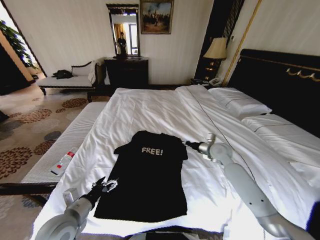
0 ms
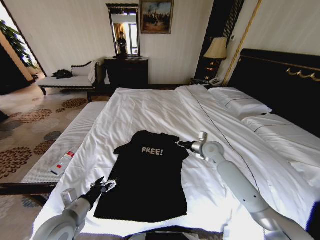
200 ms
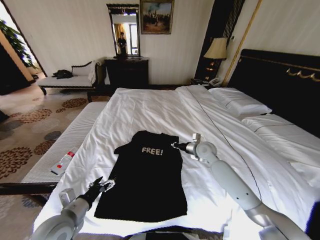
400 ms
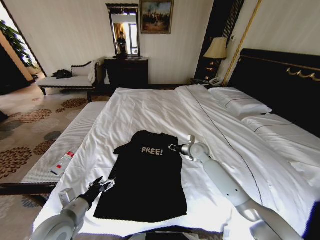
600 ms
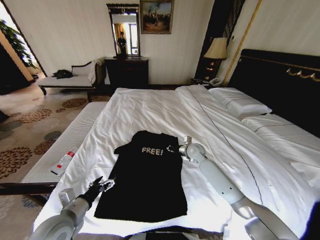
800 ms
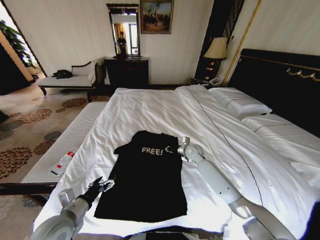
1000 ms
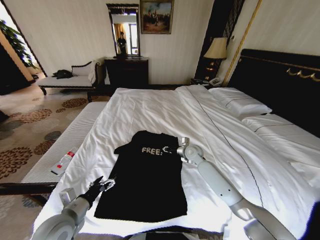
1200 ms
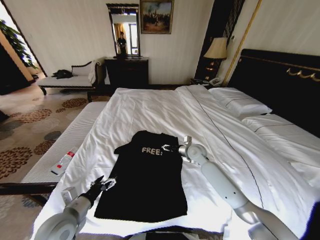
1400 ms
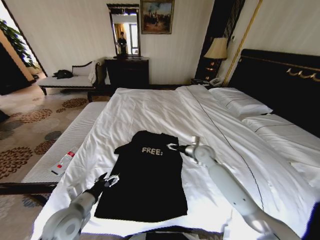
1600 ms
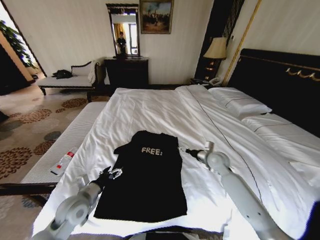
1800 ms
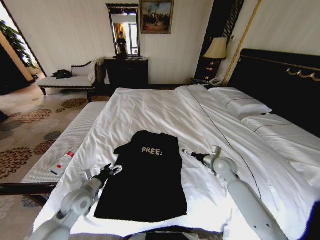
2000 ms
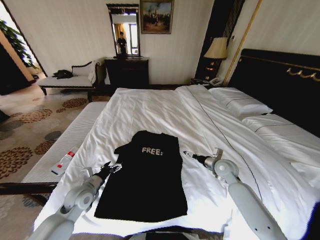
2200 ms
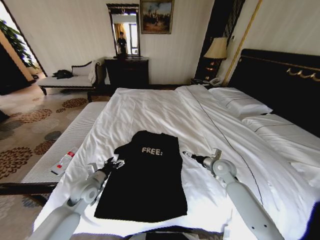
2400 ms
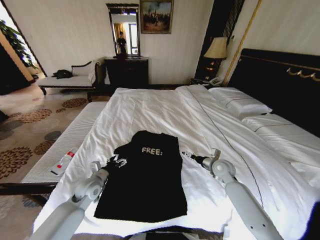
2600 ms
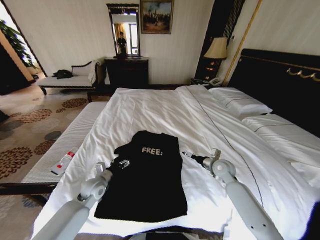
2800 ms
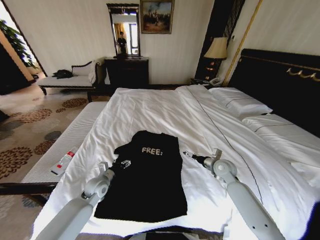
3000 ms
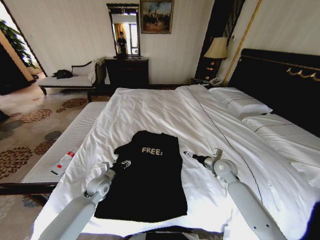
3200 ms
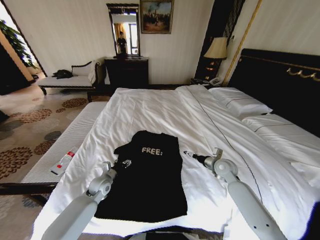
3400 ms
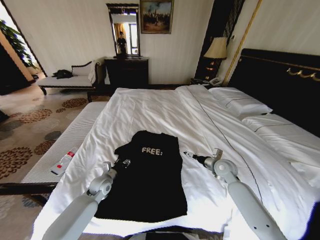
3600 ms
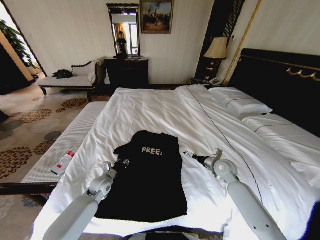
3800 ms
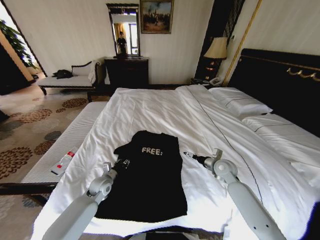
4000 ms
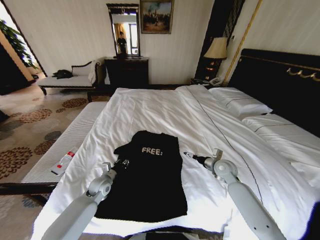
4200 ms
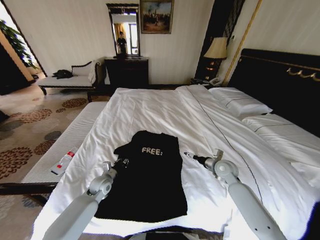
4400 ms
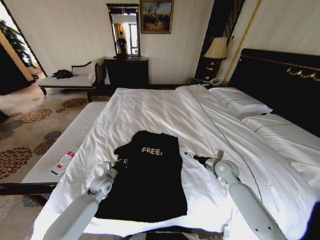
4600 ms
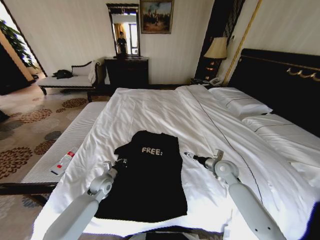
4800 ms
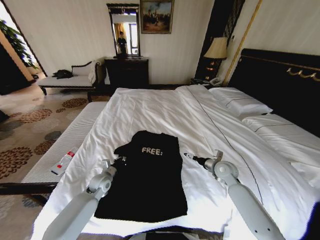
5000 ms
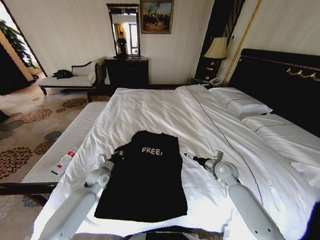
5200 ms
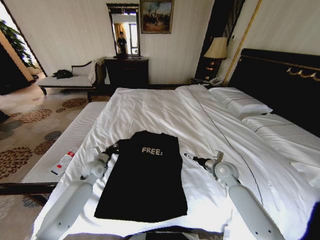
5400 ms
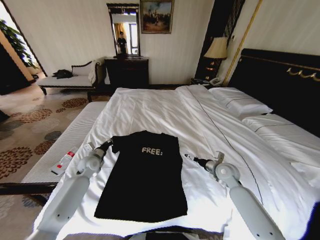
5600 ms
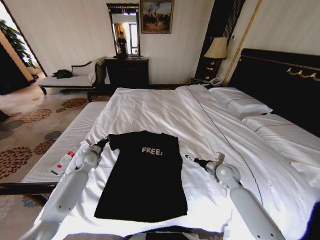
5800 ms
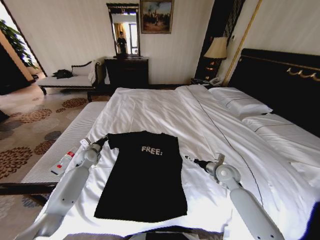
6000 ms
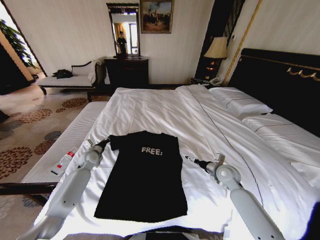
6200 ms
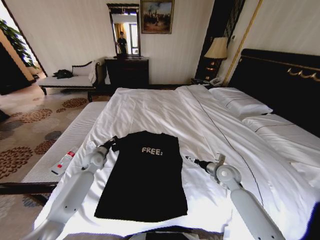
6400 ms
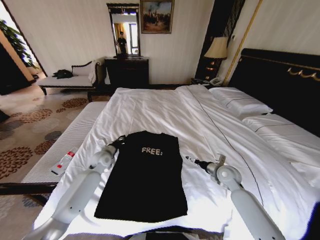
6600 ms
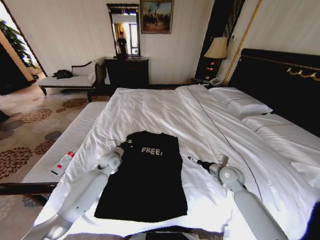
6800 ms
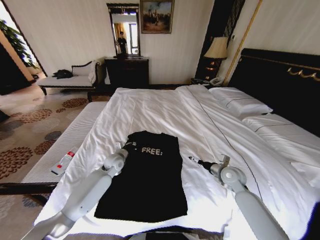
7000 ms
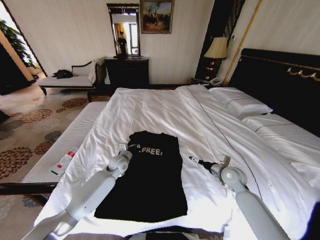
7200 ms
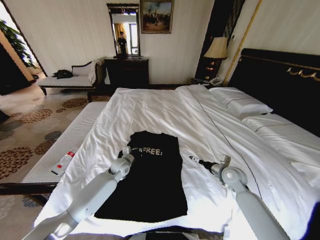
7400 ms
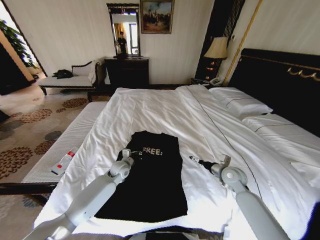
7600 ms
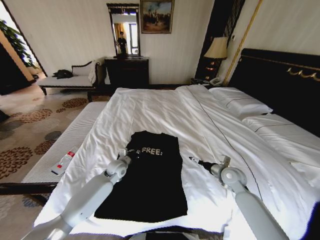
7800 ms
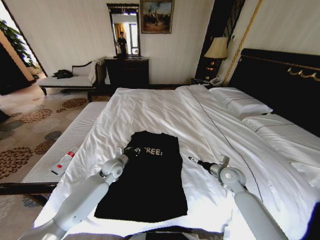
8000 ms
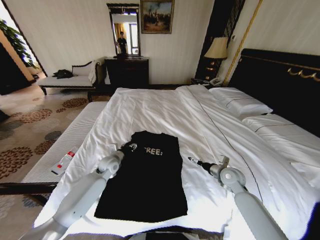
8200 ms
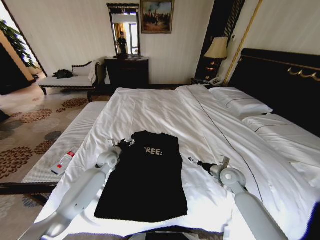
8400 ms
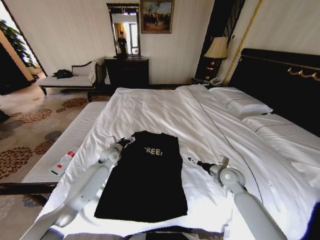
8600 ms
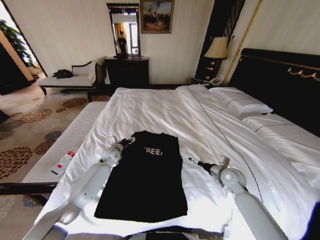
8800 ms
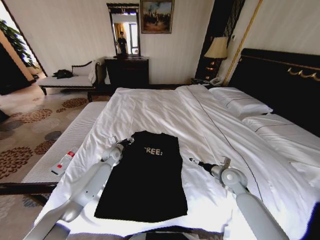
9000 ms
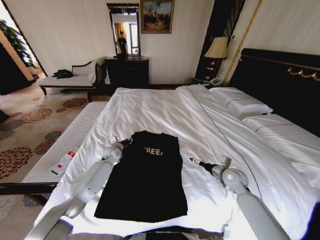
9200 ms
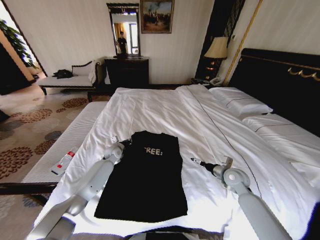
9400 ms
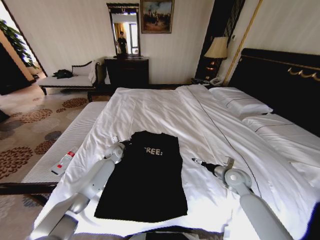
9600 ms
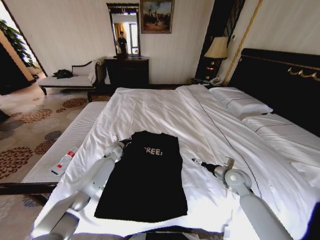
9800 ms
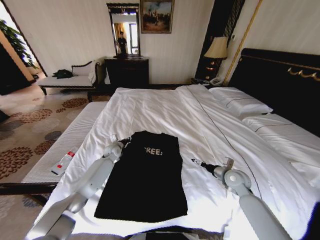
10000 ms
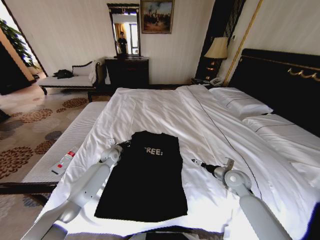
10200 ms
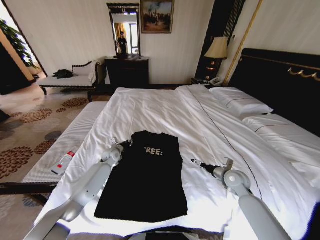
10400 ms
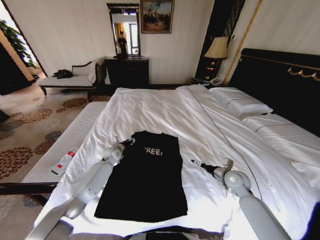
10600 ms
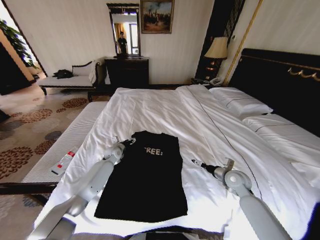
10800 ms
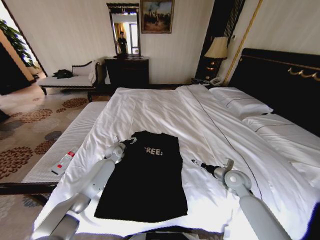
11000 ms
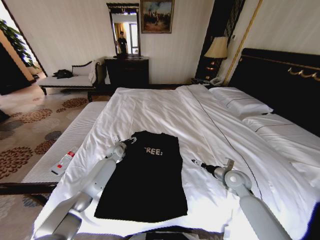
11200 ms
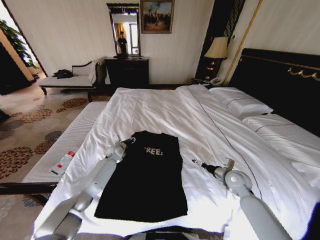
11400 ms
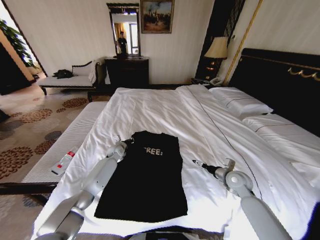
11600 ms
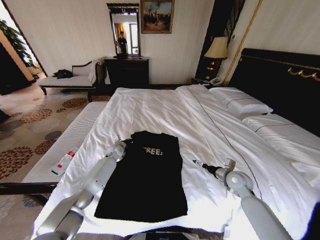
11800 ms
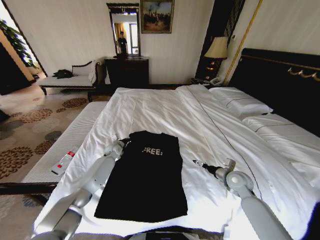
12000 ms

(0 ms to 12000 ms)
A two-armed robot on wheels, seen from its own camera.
Task of the whole recording: Fold the clothes on the bed.
0 ms - 1600 ms: The right gripper heads to the left, covering roughly 5 cm, and opens up.
1600 ms - 3000 ms: The right gripper goes roughly 10 cm to the right and backward, while the left gripper is displaced forward and downward by approximately 15 cm.
3000 ms - 4400 ms: The left gripper closes.
4400 ms - 6000 ms: The left gripper shifts some 15 cm forward, to the left and upward.
6000 ms - 7600 ms: The left gripper goes roughly 20 cm to the right.
7600 ms - 9000 ms: The left gripper is displaced forward and to the left by some 10 cm, and opens its fingers.
9000 ms - 10400 ms: The grippers move only a little.
10400 ms - 12000 ms: The left gripper opens, then closes once more.

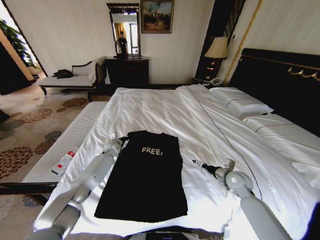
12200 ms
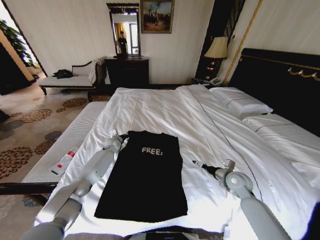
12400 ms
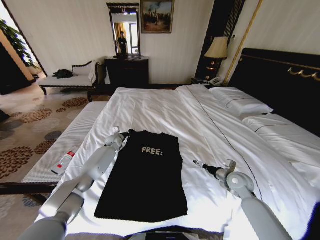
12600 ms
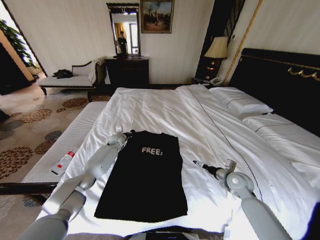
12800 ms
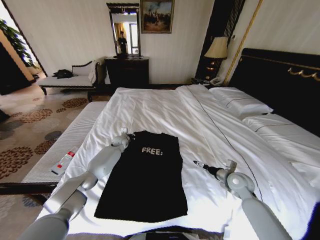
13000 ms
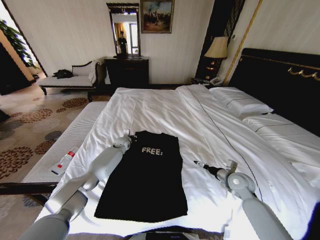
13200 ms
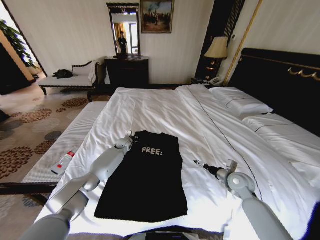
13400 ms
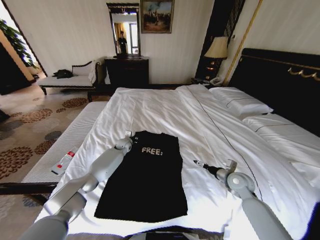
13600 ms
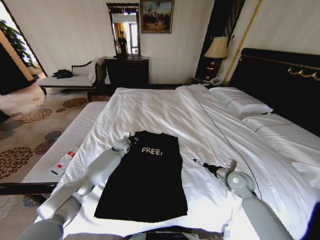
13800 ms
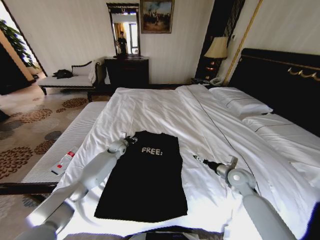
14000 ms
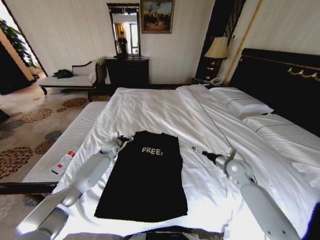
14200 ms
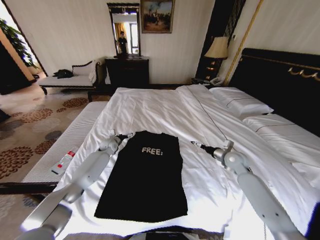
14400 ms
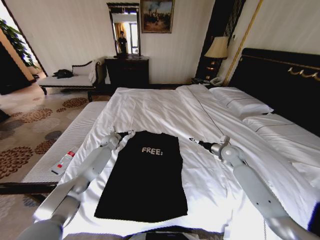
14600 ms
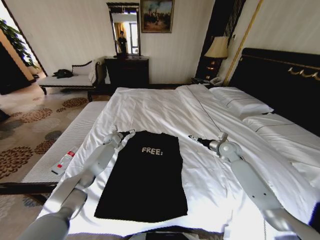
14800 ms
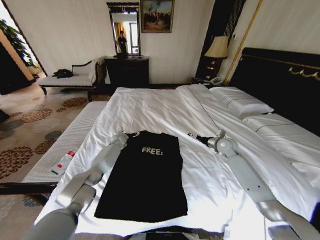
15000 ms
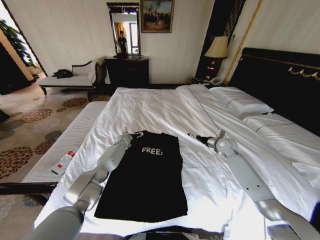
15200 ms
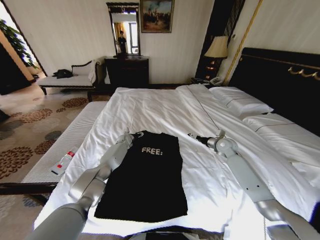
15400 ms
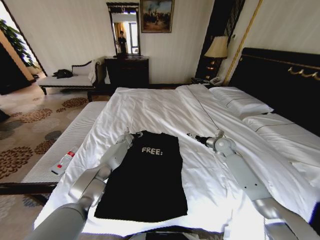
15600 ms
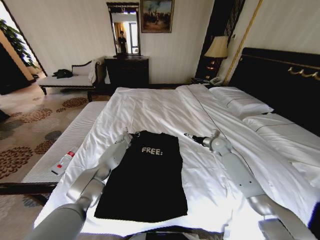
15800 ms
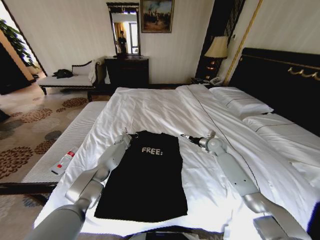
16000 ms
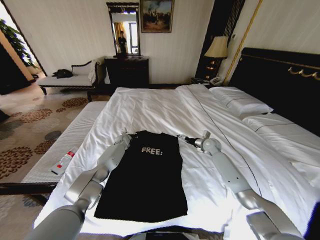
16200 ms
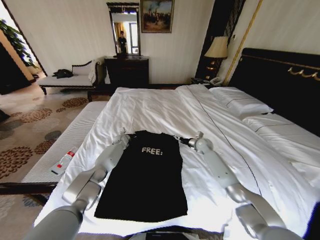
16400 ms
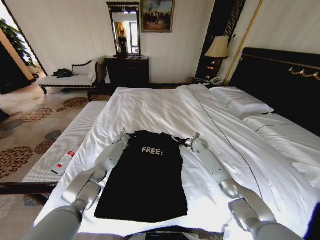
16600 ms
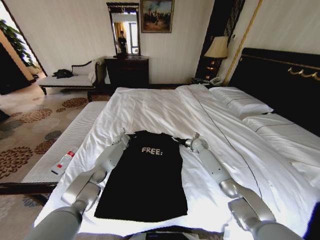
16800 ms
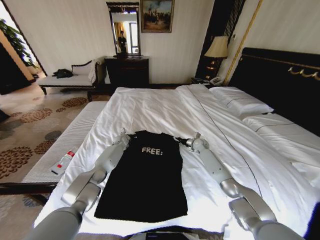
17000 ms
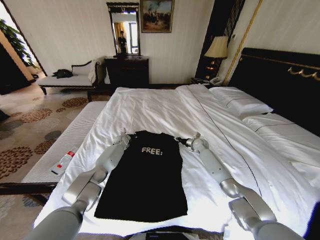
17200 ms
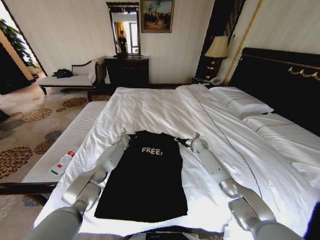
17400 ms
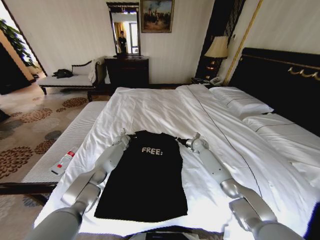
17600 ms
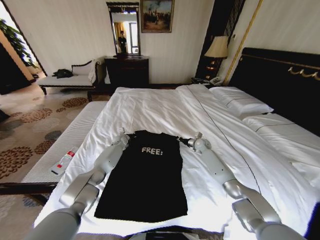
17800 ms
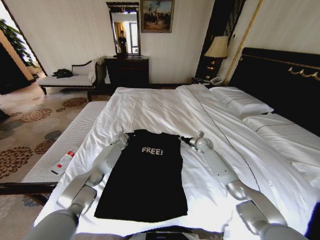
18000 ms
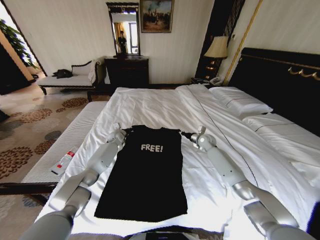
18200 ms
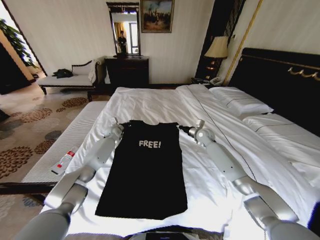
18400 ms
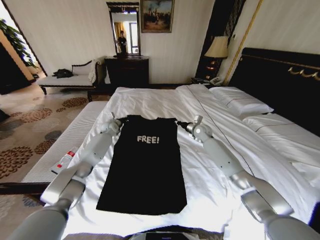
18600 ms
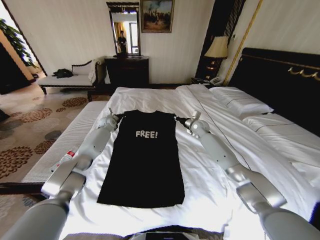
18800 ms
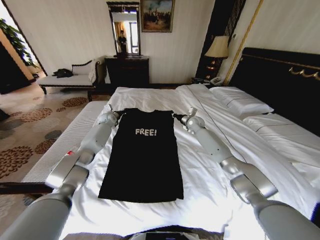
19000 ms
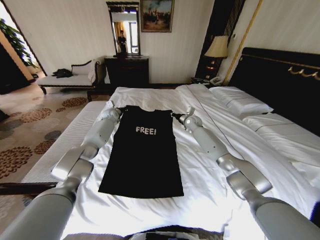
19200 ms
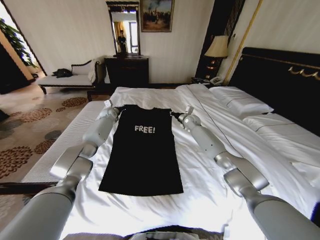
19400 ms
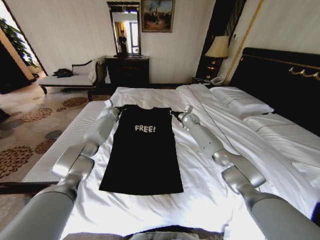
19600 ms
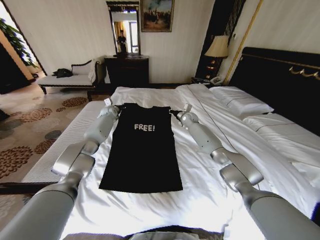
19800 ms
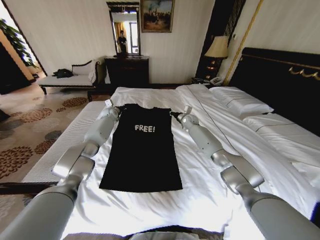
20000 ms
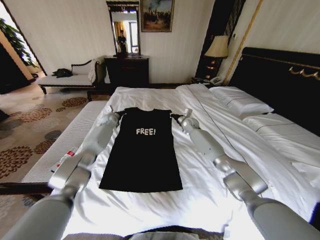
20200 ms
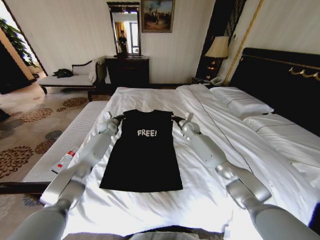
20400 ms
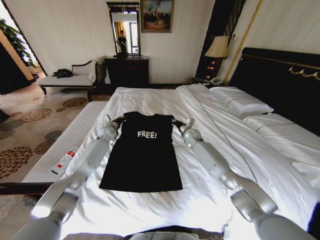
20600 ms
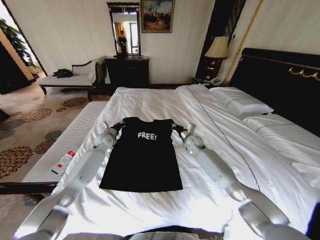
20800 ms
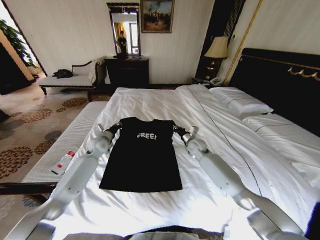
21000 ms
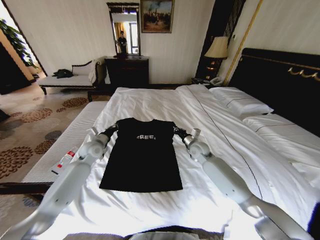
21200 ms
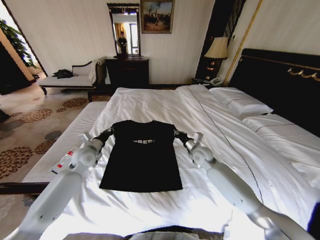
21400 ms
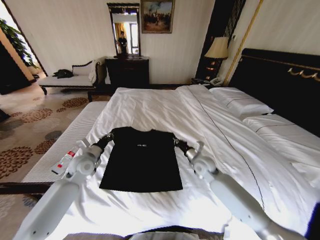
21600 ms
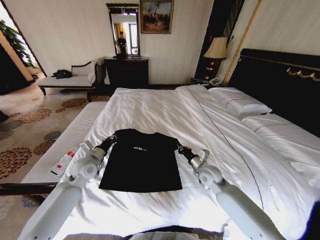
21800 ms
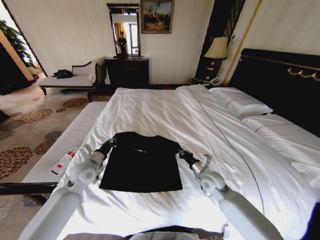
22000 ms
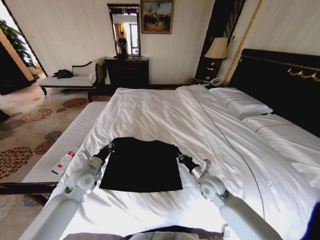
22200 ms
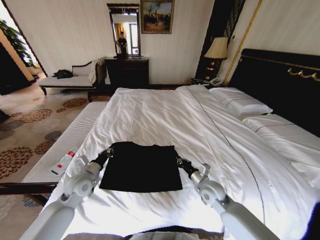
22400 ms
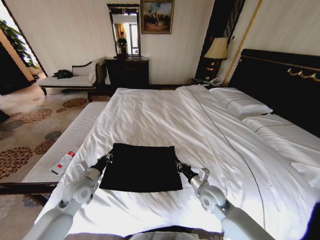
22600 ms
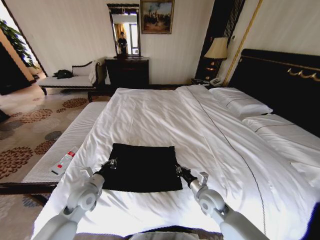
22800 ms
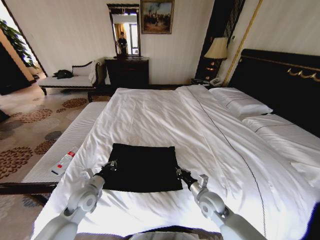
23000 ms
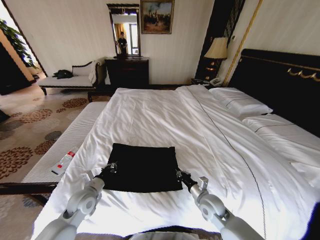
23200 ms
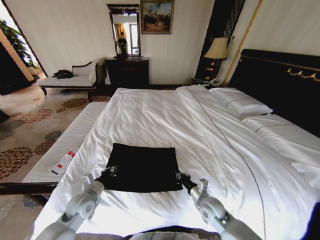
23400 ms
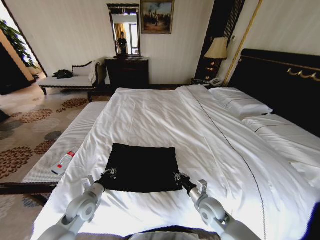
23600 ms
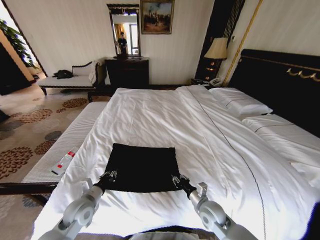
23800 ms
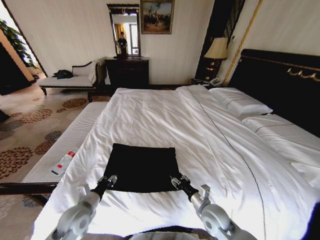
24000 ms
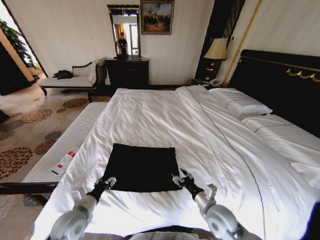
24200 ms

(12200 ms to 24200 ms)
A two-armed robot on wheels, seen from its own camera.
Task of the whole recording: Fold the clothes on the bed.
12200 ms - 13800 ms: The left gripper travels to the right by some 5 cm, and opens its fingers.
13800 ms - 15200 ms: The left gripper shifts some 5 cm forward, and opens up. Meanwhile the right gripper travels forward by approximately 15 cm.
15200 ms - 16600 ms: The right gripper moves to the left, downward and forward, about 15 cm; the left gripper closes its fingers.
16600 ms - 18200 ms: The right gripper moves upward, about 5 cm, and closes up.
18200 ms - 19800 ms: The right gripper moves forward, to the left and upward, about 15 cm; the left gripper shifts approximately 15 cm upward and forward.
19800 ms - 21200 ms: The grippers both shift backward by approximately 20 cm.
21200 ms - 22600 ms: The grippers both shift backward by about 20 cm.
22600 ms - 24200 ms: Both grippers move backward, some 10 cm. The right gripper opens up. The left gripper opens.
